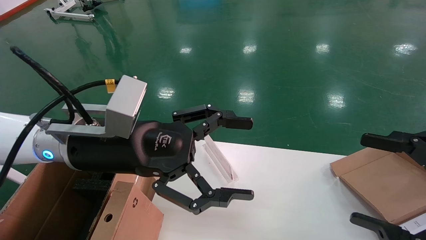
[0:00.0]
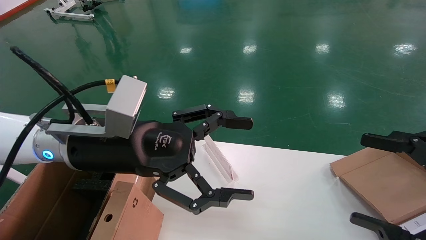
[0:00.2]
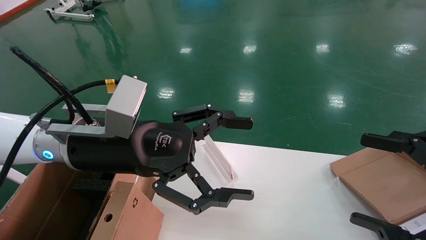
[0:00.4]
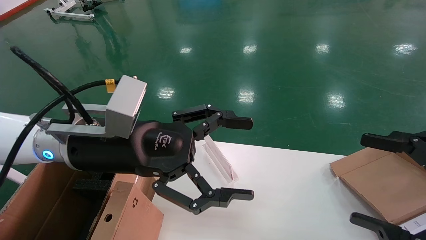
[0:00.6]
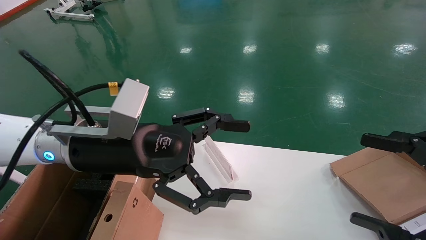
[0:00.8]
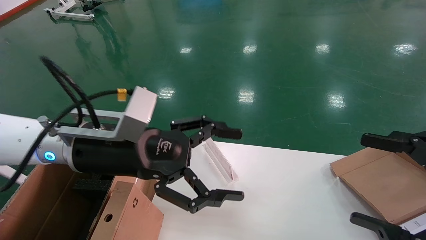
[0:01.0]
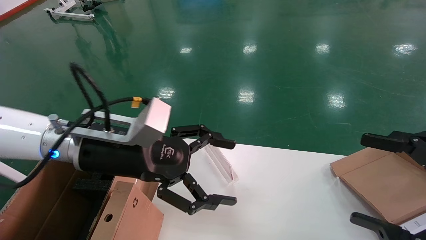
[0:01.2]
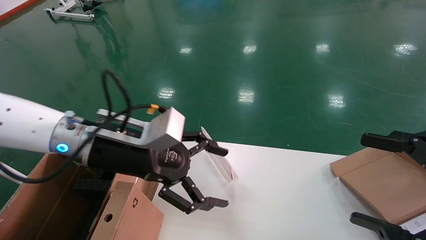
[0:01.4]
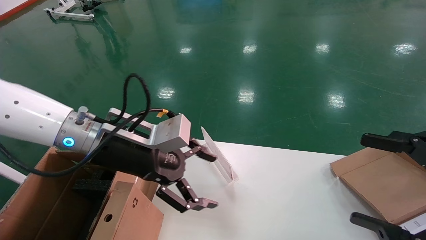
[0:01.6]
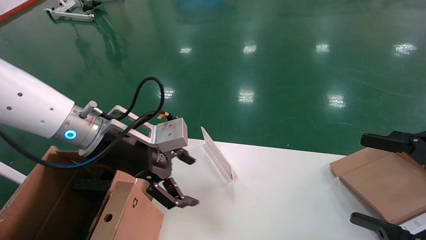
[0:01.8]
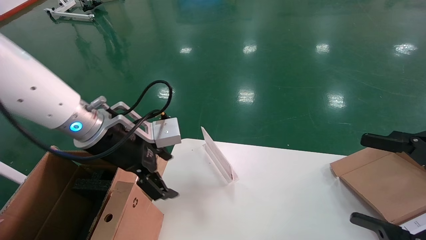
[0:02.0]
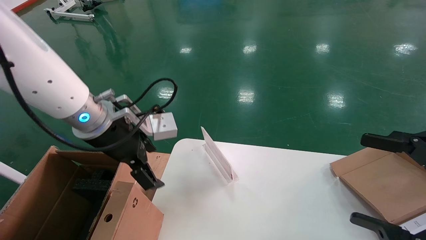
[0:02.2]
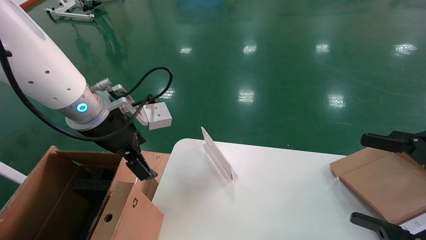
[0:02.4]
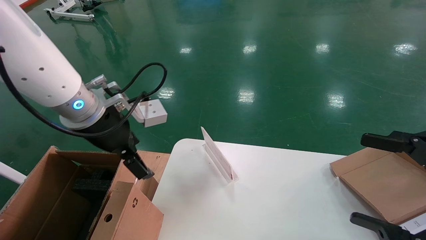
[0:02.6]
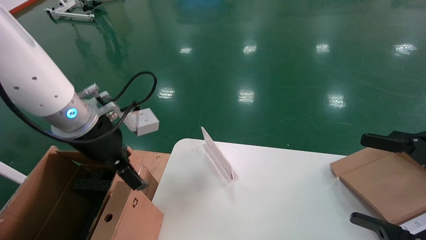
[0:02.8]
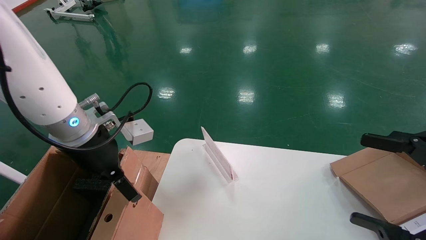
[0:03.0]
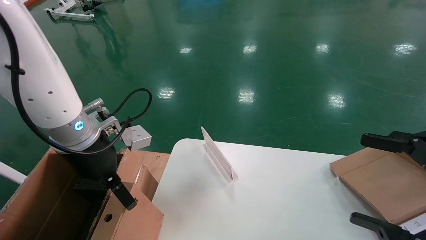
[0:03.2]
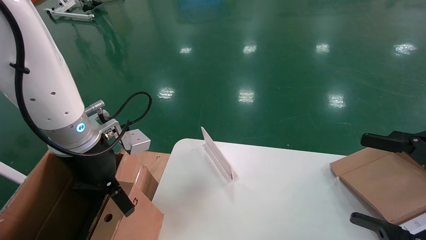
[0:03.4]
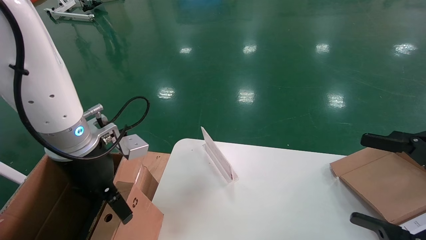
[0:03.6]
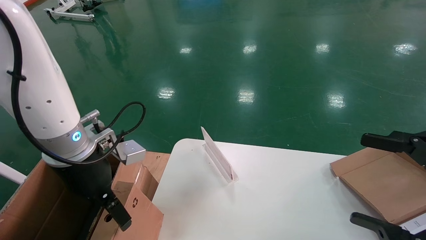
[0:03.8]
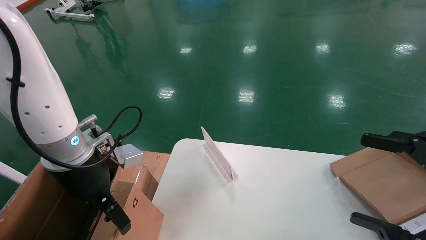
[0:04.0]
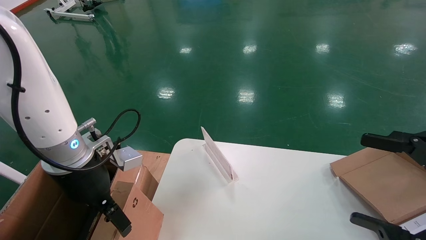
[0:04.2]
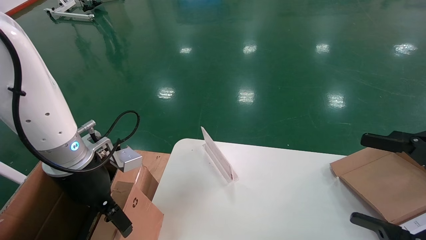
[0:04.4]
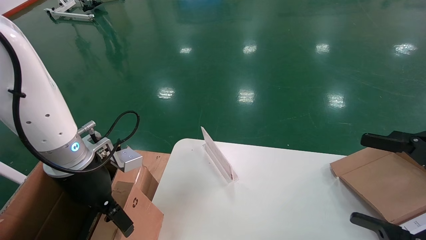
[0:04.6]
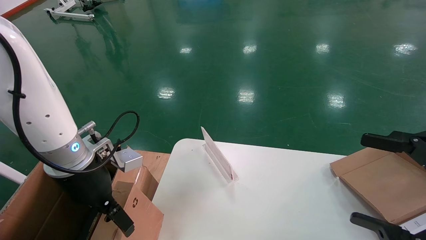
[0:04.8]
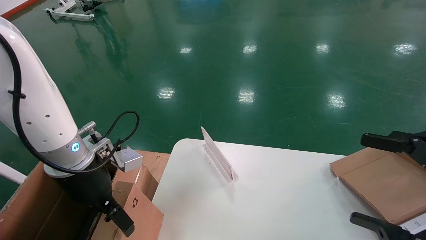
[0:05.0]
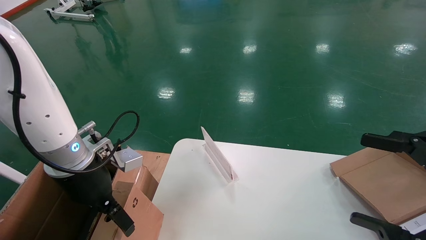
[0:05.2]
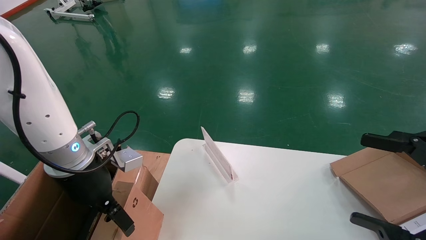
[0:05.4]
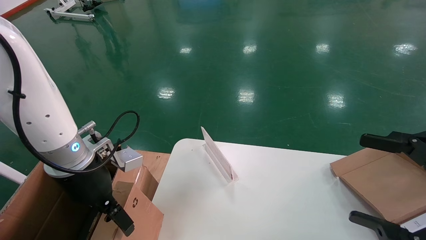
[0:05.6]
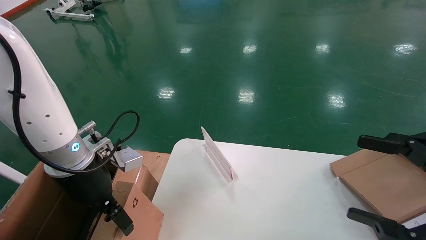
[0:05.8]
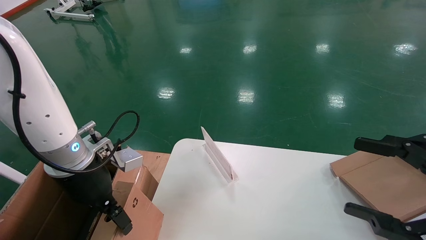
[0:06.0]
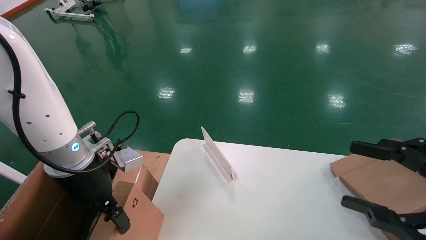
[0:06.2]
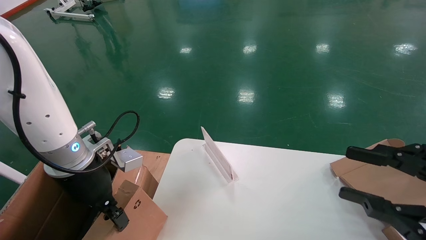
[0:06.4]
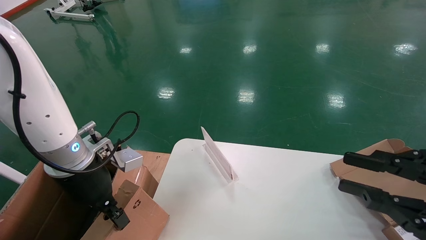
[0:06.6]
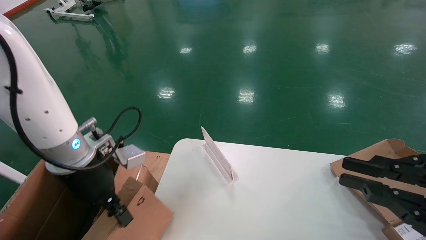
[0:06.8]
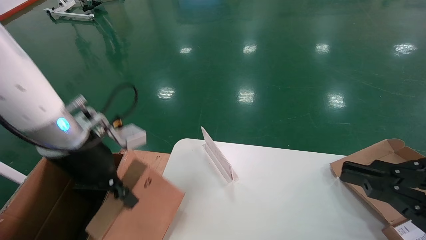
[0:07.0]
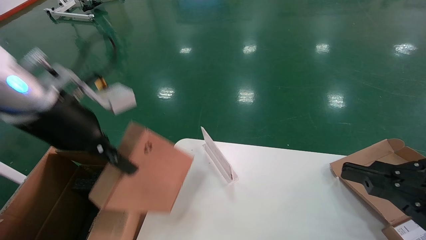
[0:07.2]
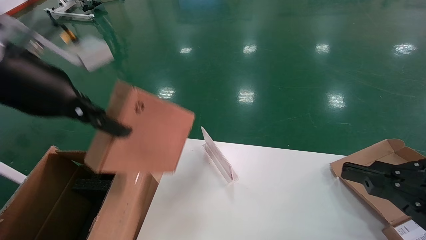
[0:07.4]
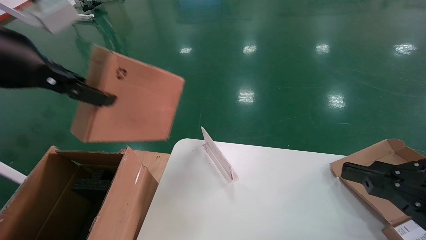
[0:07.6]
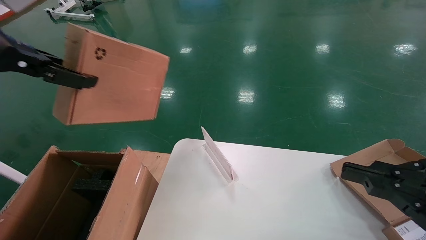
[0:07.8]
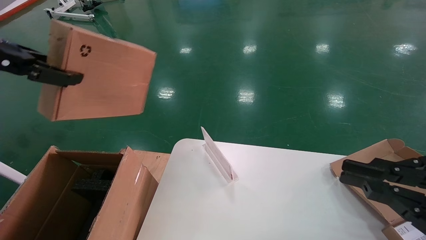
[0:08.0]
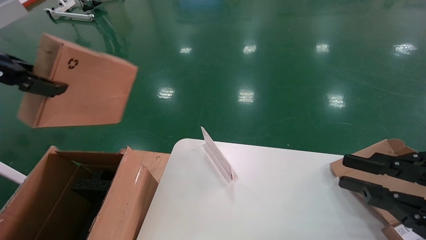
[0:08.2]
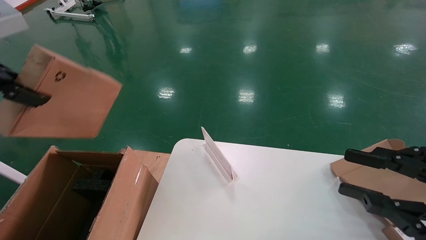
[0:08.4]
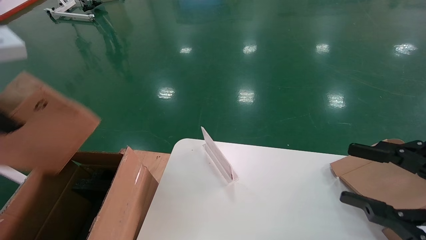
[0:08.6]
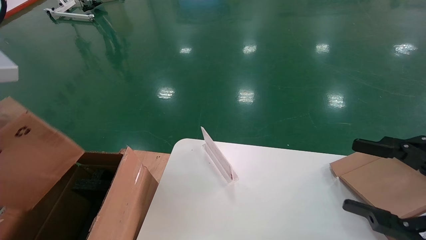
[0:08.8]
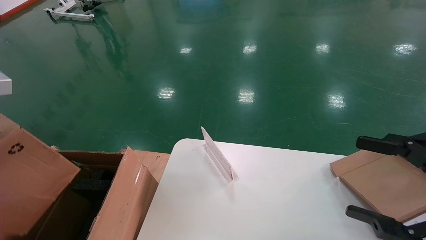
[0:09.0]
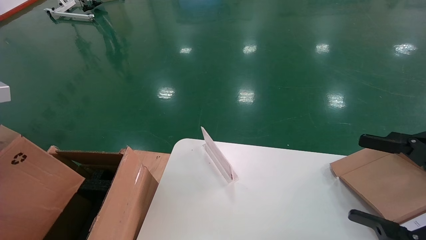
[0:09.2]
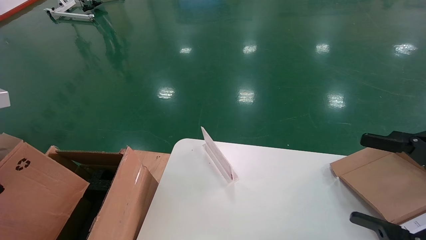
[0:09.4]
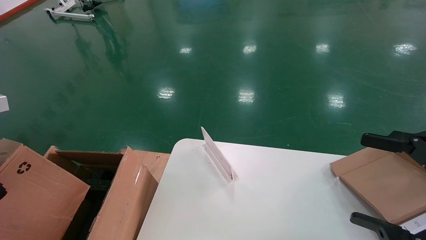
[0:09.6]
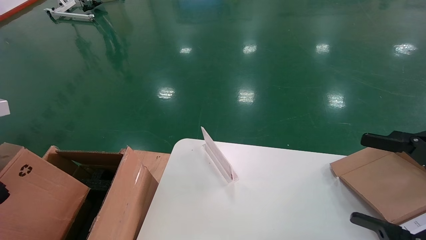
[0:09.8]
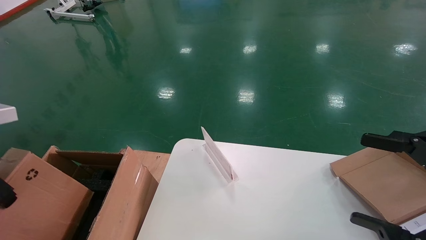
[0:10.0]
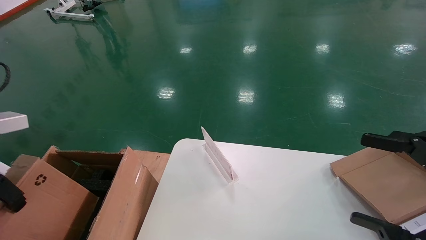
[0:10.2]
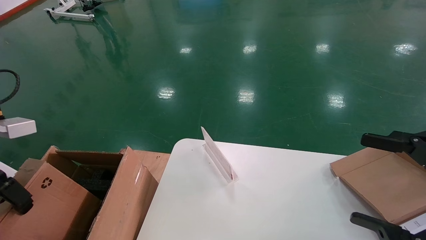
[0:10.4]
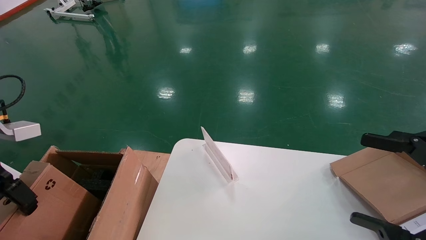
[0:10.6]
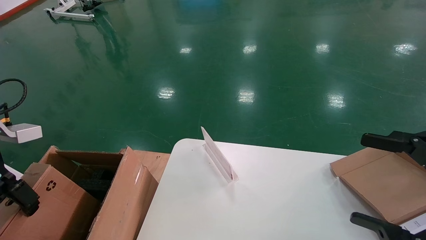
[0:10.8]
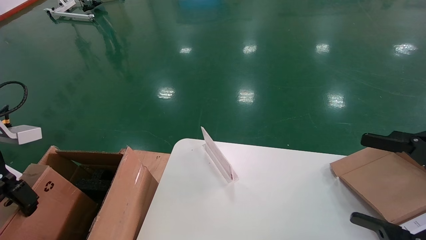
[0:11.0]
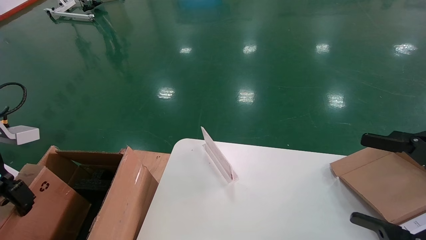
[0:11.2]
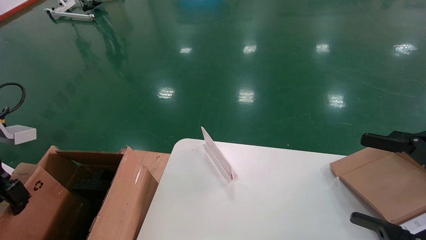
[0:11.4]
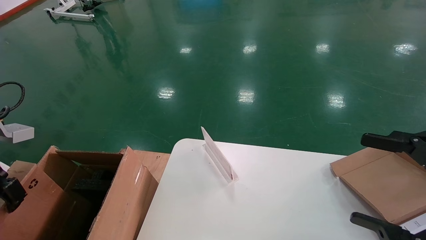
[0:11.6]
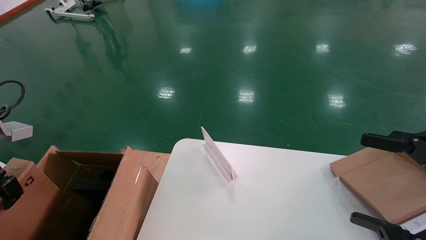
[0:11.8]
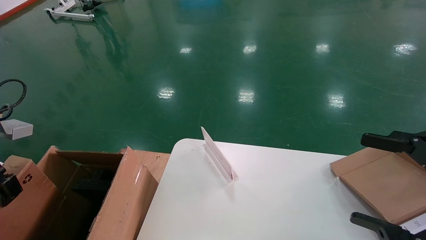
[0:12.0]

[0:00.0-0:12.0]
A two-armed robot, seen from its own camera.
Task of the whole recording: pick up the small cardboard box and load it into the large cardboard box.
Step, 0:03.6 to 0:10.6: Pick up the mouse and power cord box.
0:03.0 to 0:04.4: The grippers make only small movements.
0:04.4 to 0:06.0: Both grippers stay about where they are.
0:06.0 to 0:07.6: The right gripper closes up, while the left gripper goes approximately 20 cm upward, and closes its fingers.
0:07.6 to 0:09.0: The right gripper opens. The left gripper shifts by approximately 5 cm.
0:09.0 to 0:10.4: The left gripper travels downward and to the left by some 10 cm, while the right gripper opens its fingers.
0:10.4 to 0:12.0: The left gripper changes place by about 5 cm.

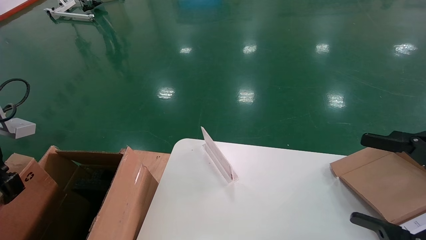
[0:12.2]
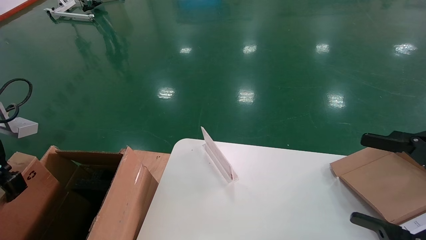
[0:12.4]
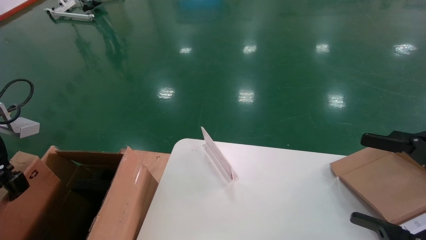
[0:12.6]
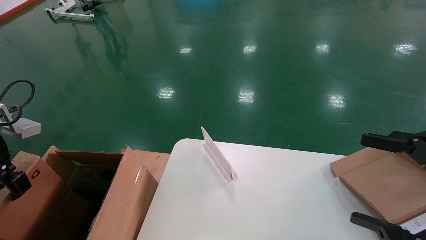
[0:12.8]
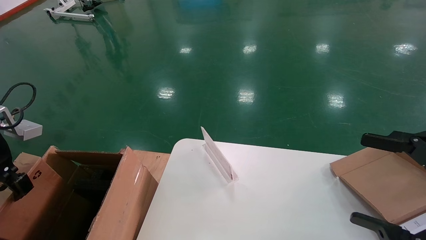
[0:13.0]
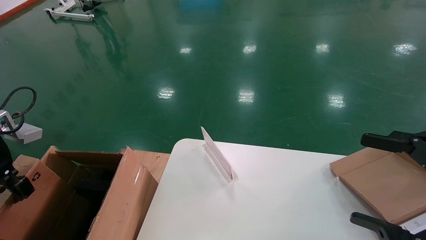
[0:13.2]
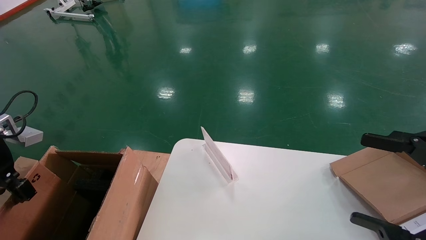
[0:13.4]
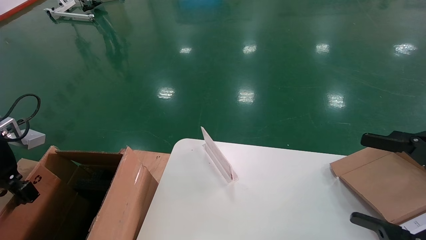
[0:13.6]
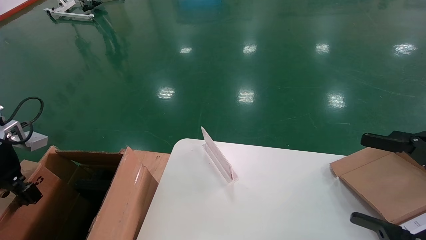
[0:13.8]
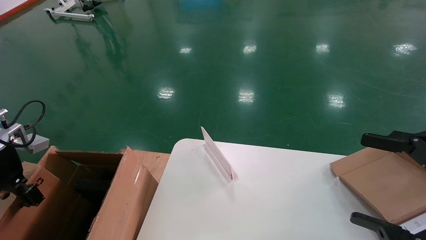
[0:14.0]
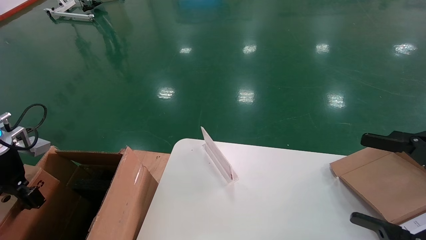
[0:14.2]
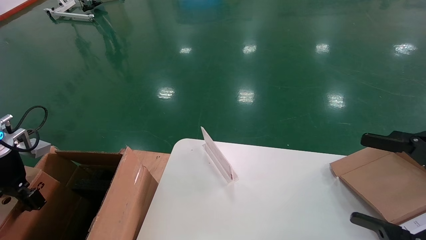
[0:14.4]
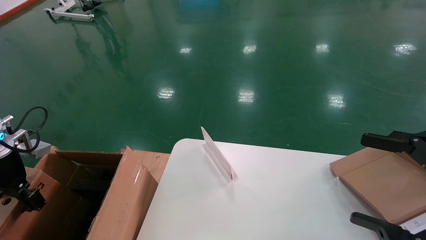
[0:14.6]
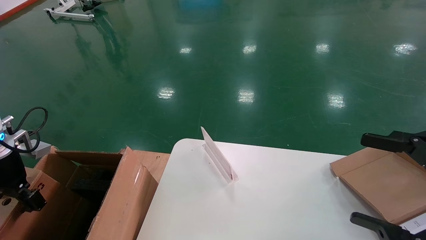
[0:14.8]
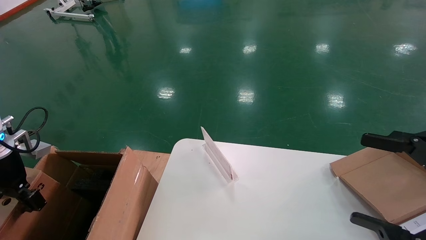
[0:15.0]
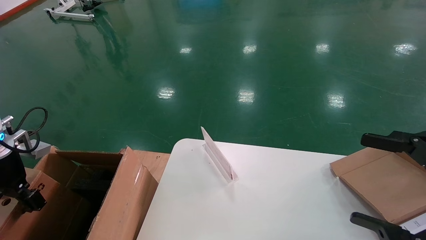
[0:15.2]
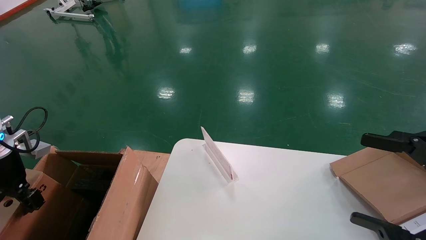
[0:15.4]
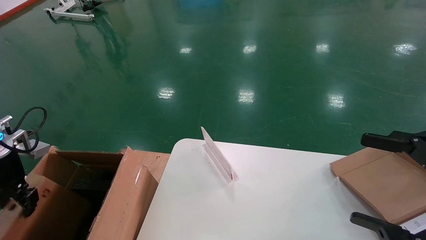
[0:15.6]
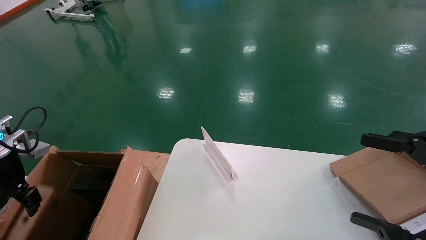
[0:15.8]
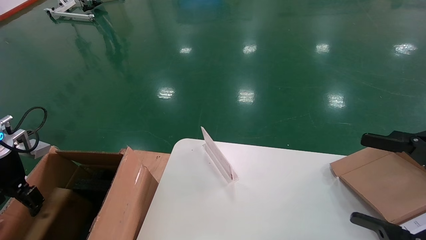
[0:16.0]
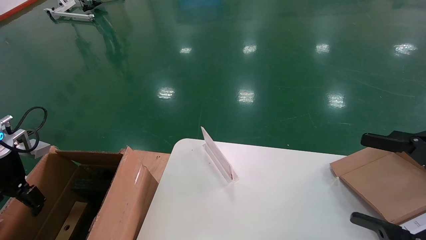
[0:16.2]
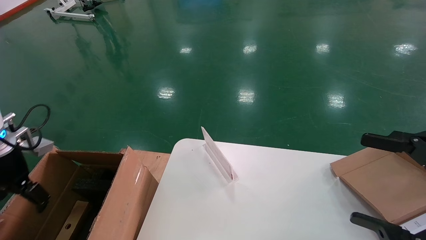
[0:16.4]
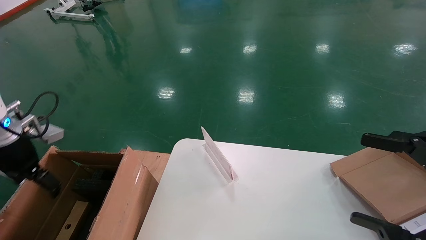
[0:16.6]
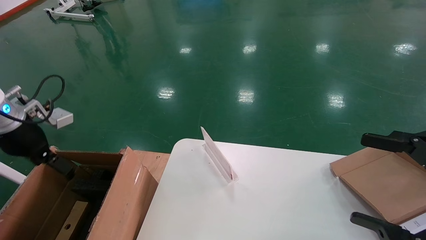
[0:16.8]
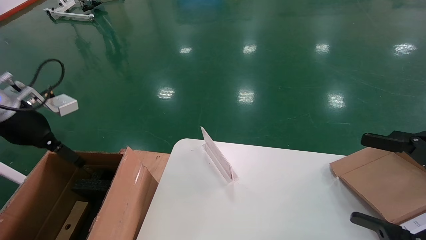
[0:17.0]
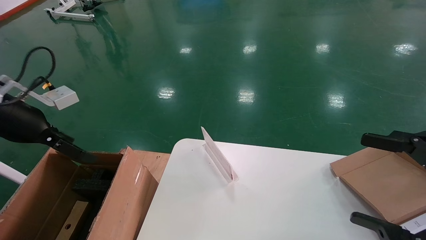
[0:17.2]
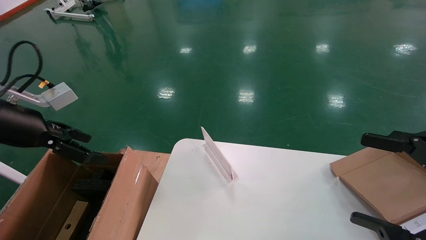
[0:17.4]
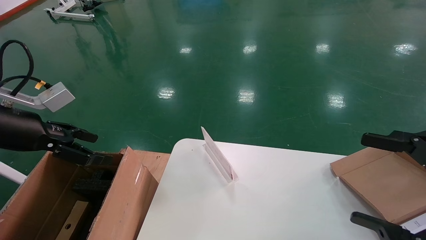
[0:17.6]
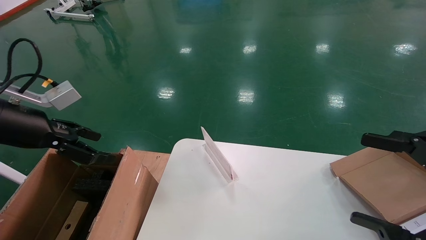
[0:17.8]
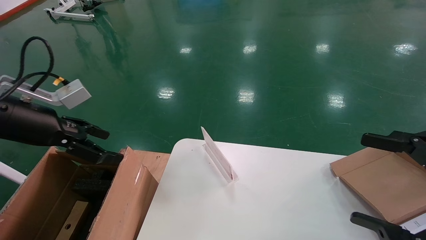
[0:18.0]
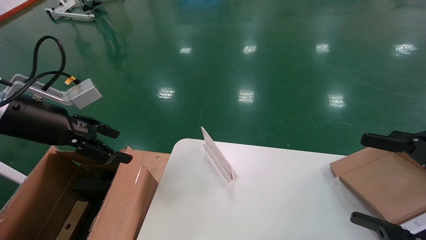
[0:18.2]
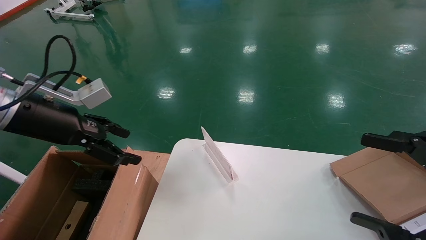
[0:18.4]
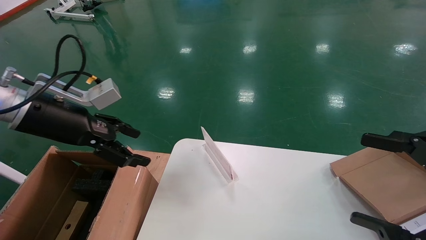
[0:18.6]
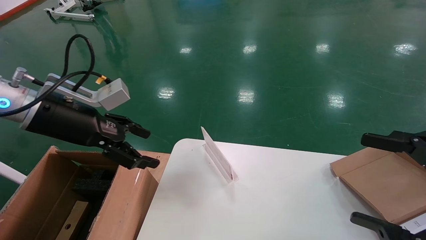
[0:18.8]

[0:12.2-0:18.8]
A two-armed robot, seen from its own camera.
Task of the whole recording: pick up the small cardboard box and load it into the large cardboard box.
Step, 0:12.2 to 0:18.6: Place the mouse and power cord box into the case.
0:12.2 to 0:13.8: The left gripper shifts some 5 cm downward.
0:13.8 to 0:15.4: There are only small adjustments of the grippers.
0:15.4 to 0:17.2: The left gripper is displaced upward by roughly 10 cm, and opens.
0:17.2 to 0:18.8: The left gripper goes about 10 cm to the right.
